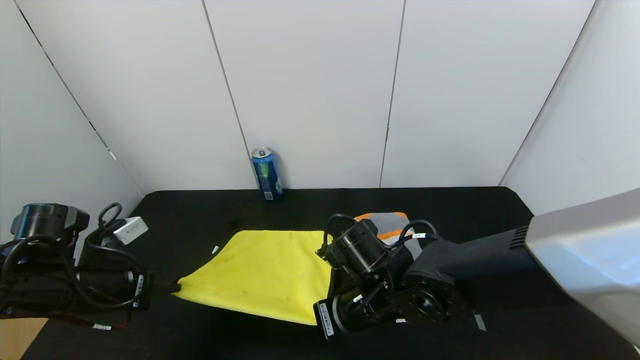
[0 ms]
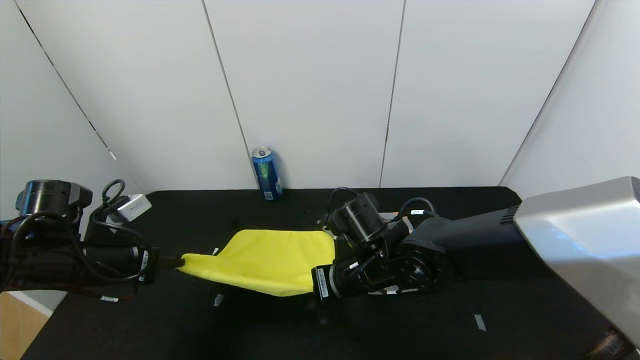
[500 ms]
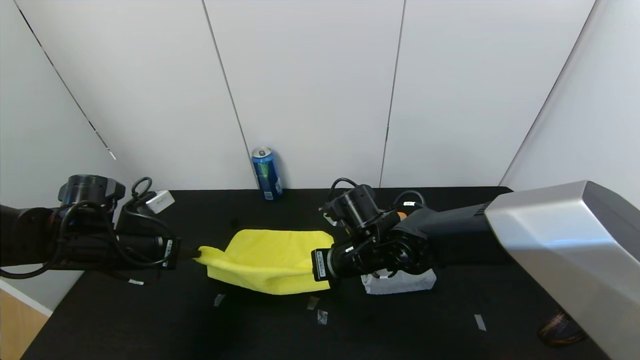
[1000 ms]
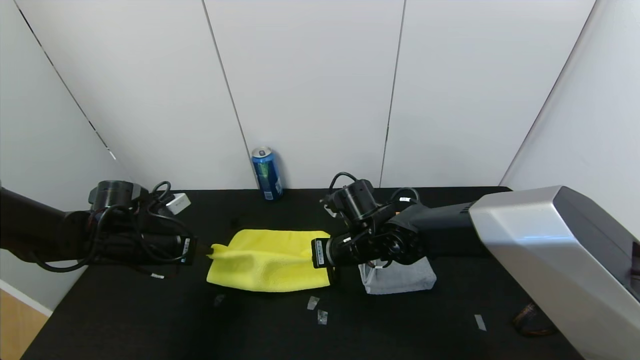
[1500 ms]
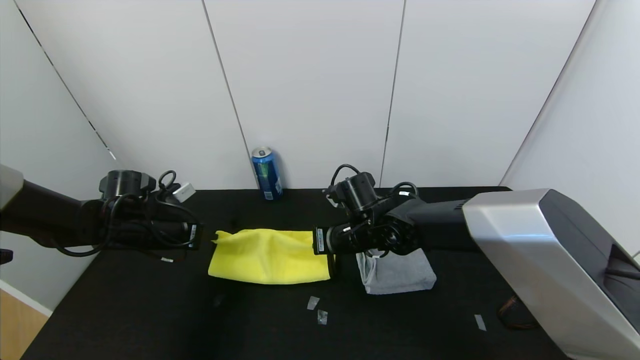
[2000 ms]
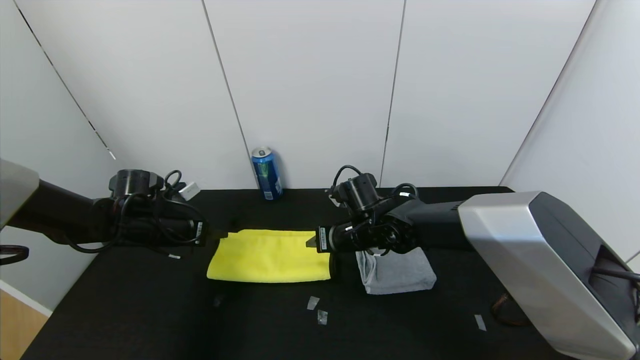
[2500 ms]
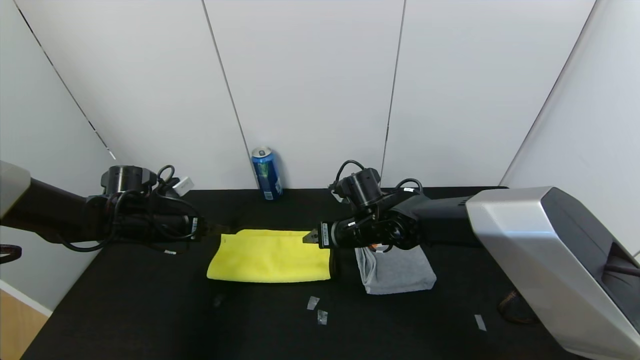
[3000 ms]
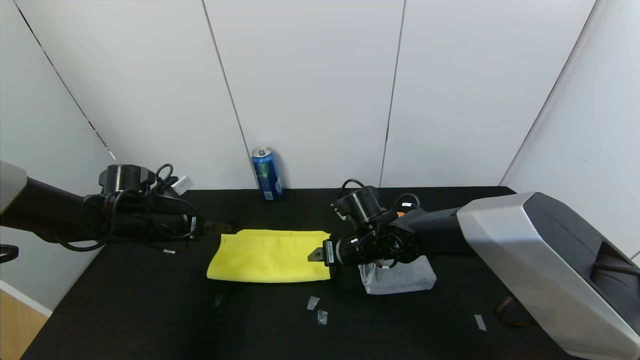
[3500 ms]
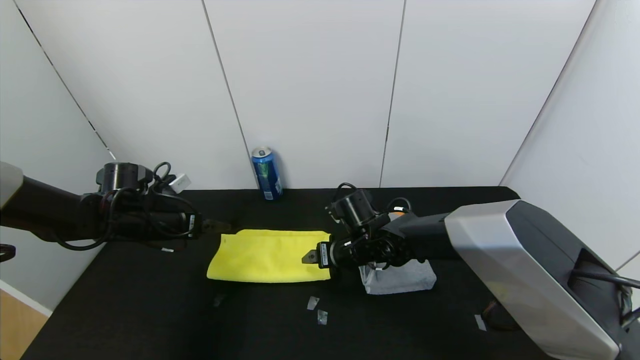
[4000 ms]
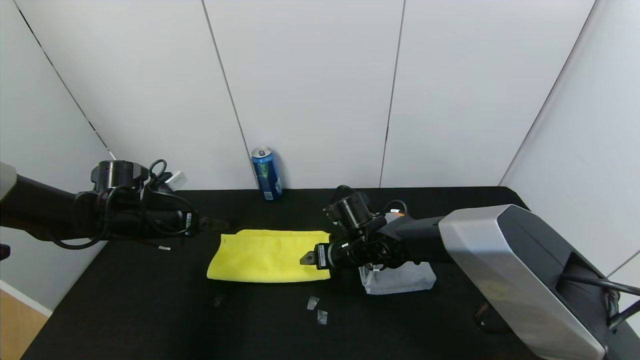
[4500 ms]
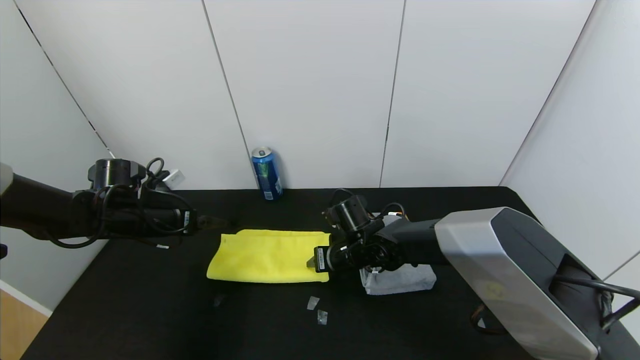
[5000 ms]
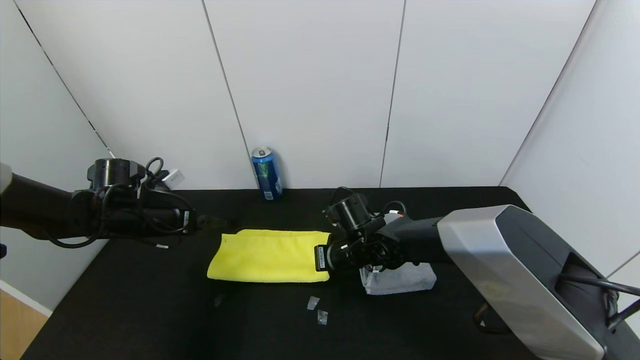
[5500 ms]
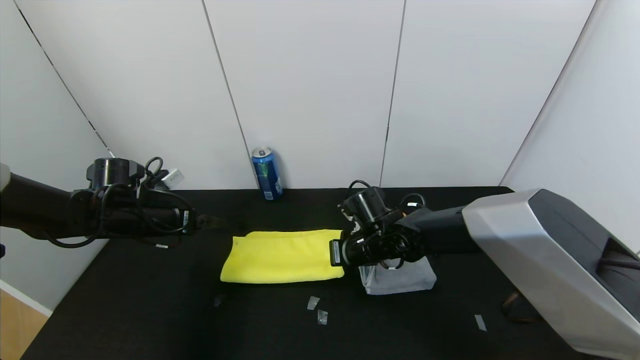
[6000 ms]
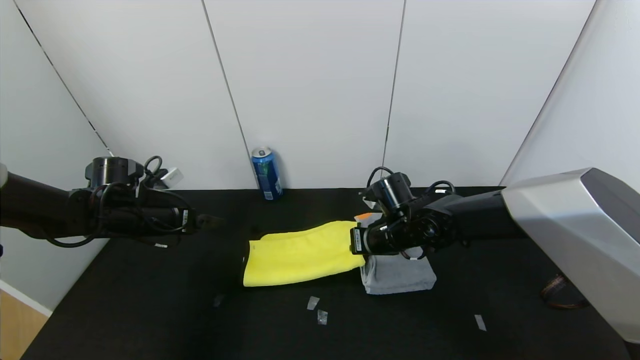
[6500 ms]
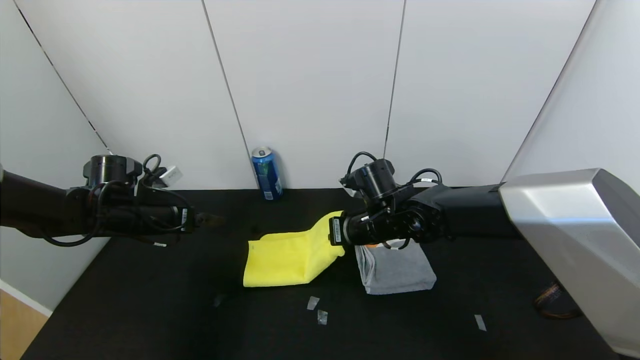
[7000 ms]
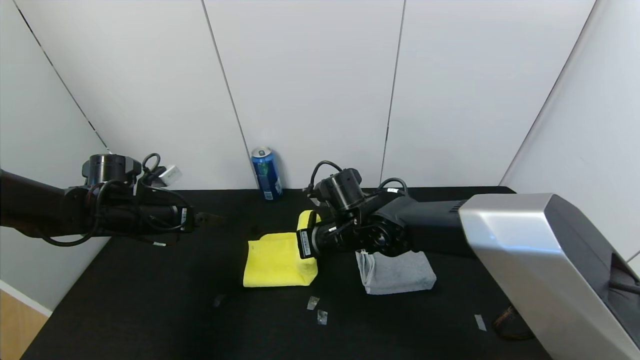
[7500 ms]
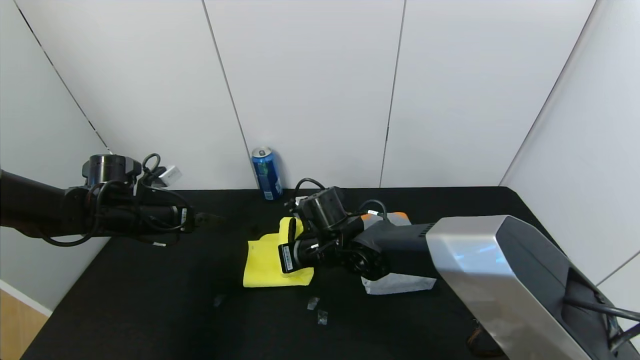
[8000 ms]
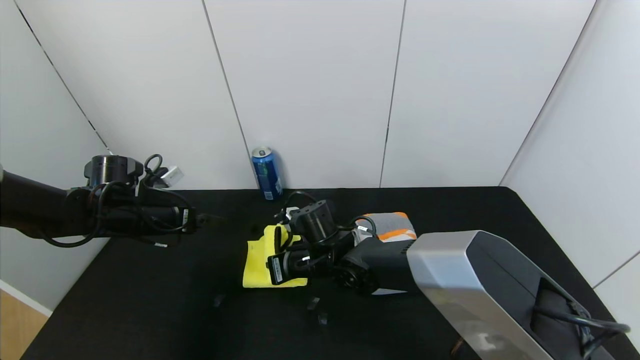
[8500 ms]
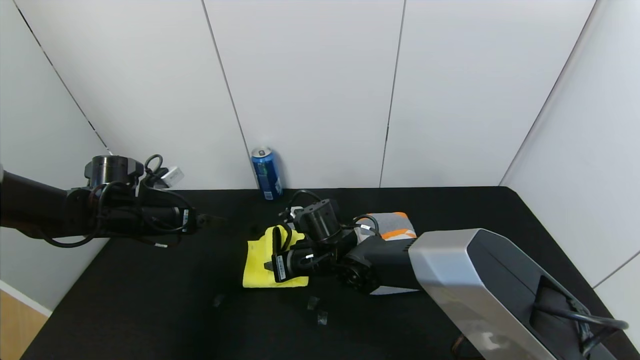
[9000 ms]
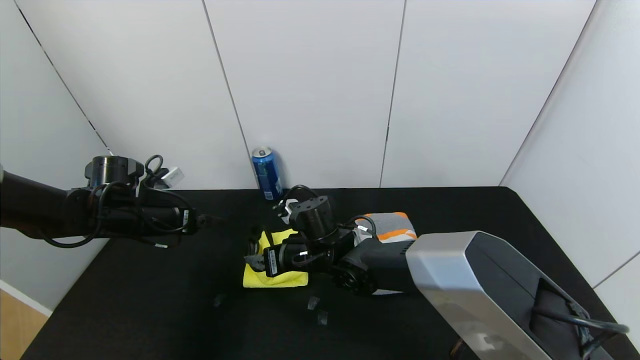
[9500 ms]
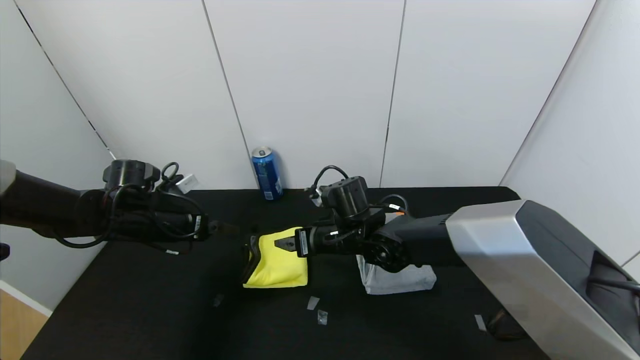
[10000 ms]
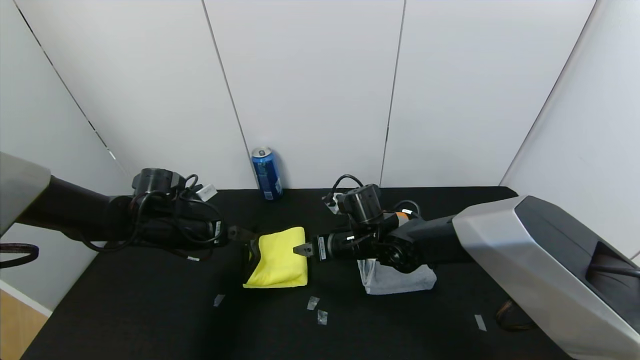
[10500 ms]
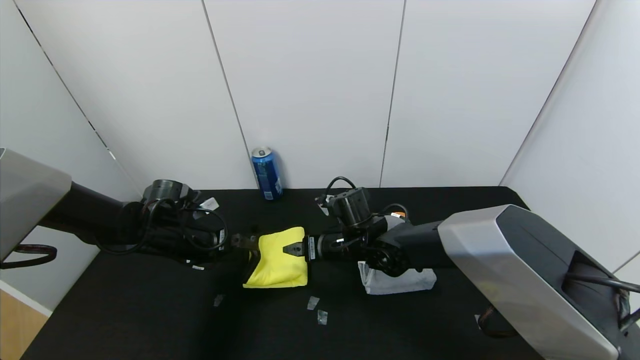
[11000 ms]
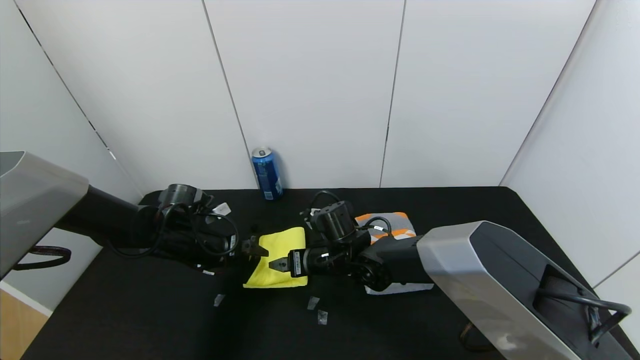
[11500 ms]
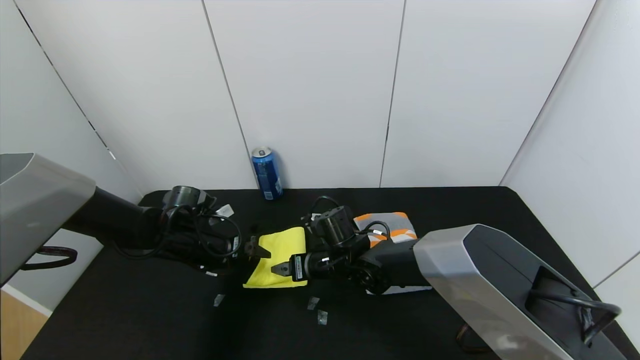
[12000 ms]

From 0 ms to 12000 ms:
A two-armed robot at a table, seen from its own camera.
Task of the whole recording: Use the gripper to fold the yellow towel and grey towel in half twice,then put the yellow towel on the grey towel.
Step, from 0 ms to 2500 ms: Fold the yellow towel upwards with the left gripper.
Step, from 0 ms to 2500 ms: Fold the yellow towel upwards with the right gripper.
Step, from 3000 ms to 9500 ms: Fold the yellow towel from right to left with right gripper.
From 0 ms to 2000 ms: Both grippers move forward, some 15 cm.
From 2000 ms to 4000 ms: The left gripper opens its fingers. The right gripper opens its fingers.
From 4000 ms to 6000 ms: The right gripper closes its fingers.
From 6000 ms to 8000 ms: The right gripper travels to the left by approximately 10 cm.
From 8000 ms to 10000 ms: The right gripper opens.
From 10000 ms to 12000 ms: The left gripper heads to the right and downward, covering about 10 cm, while the right gripper is displaced downward by some 5 cm.

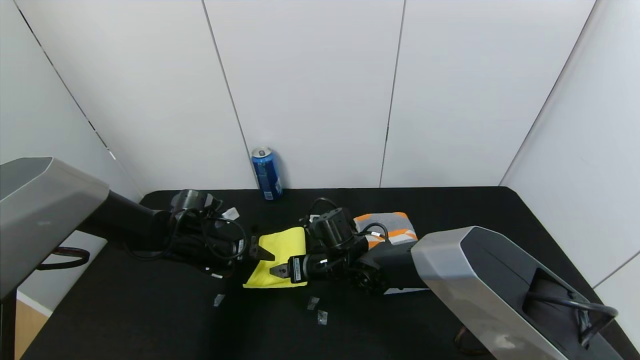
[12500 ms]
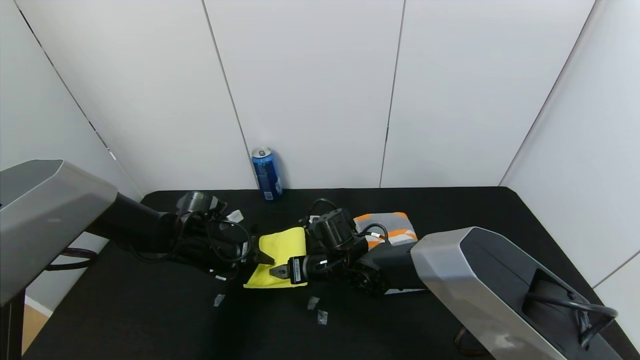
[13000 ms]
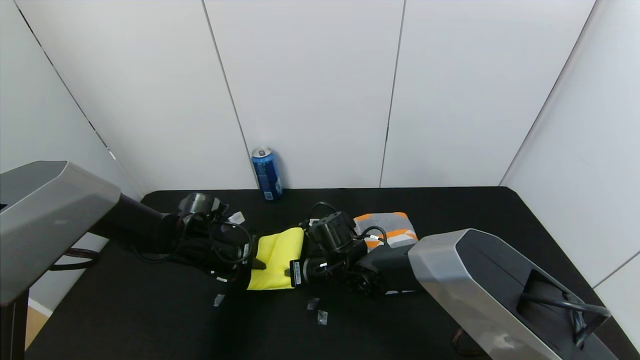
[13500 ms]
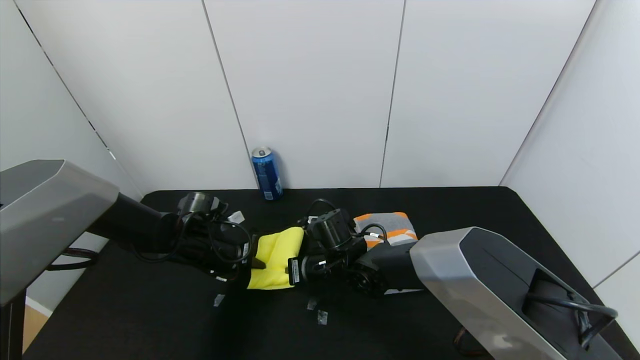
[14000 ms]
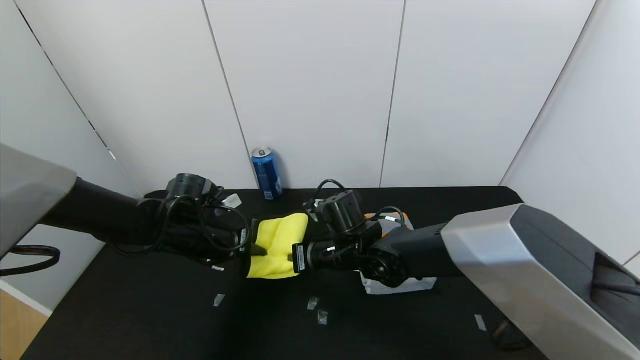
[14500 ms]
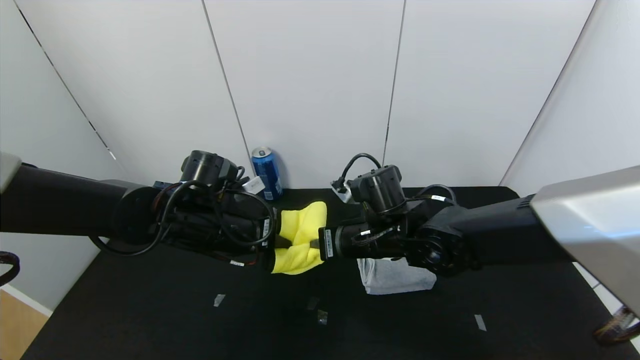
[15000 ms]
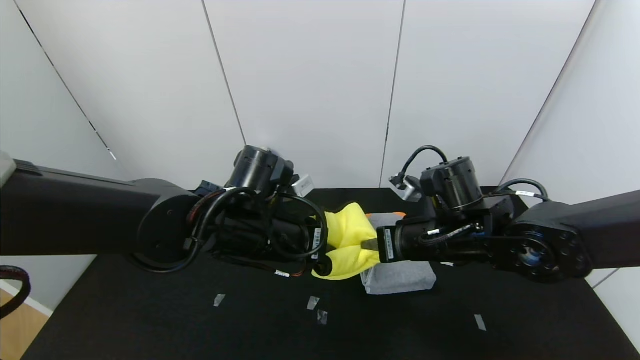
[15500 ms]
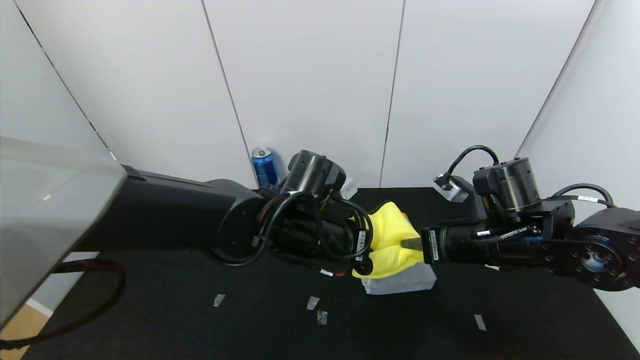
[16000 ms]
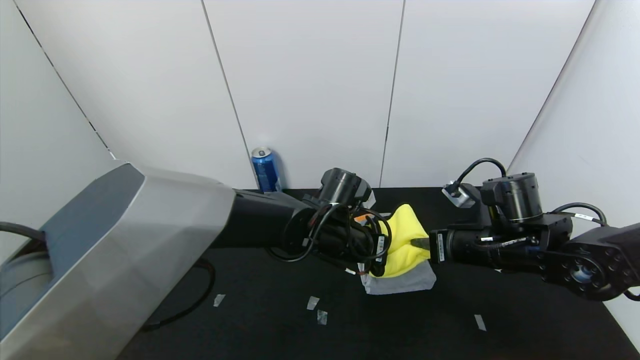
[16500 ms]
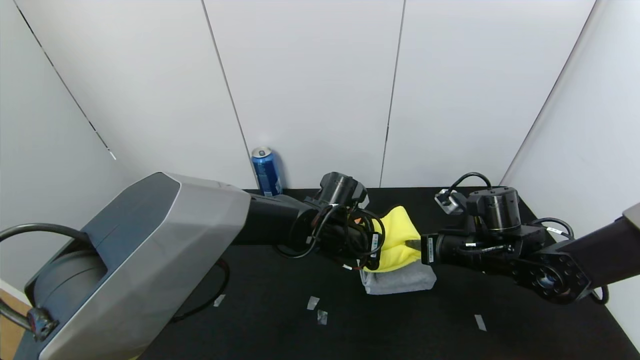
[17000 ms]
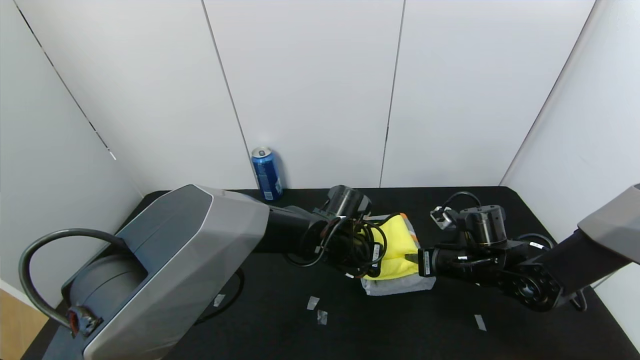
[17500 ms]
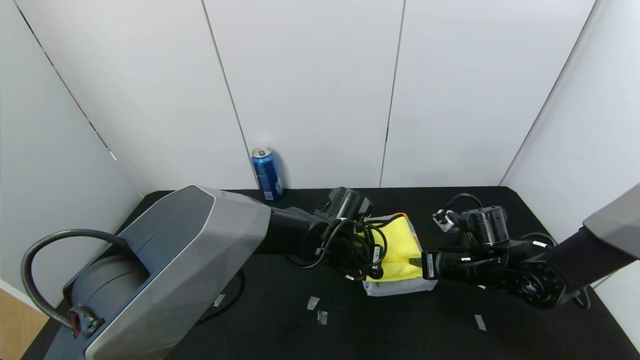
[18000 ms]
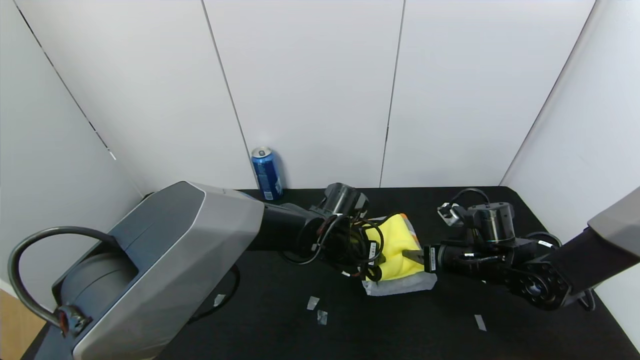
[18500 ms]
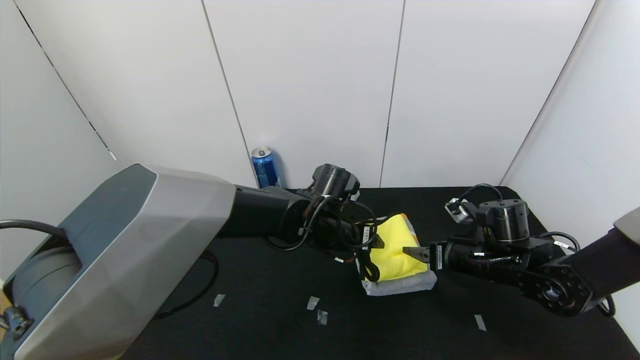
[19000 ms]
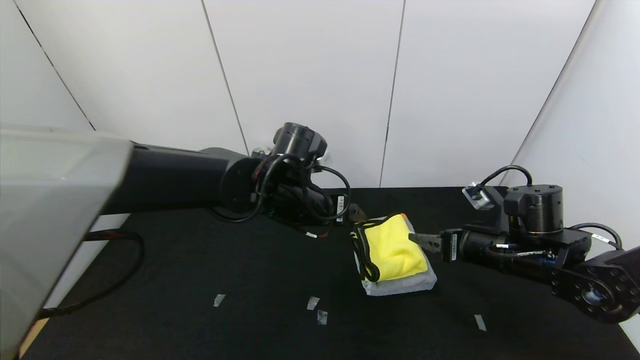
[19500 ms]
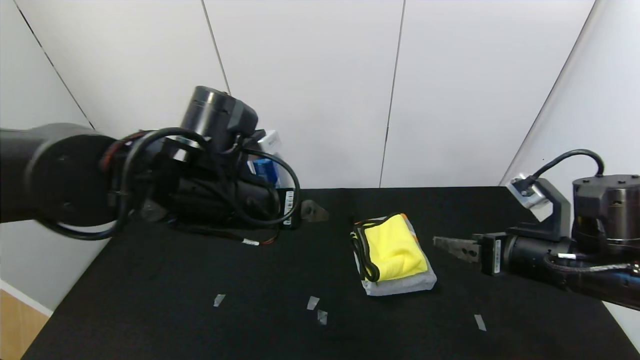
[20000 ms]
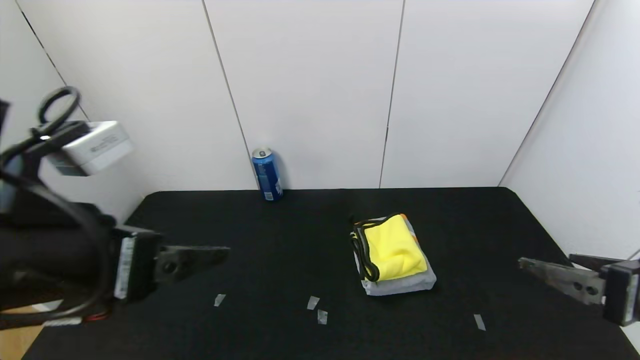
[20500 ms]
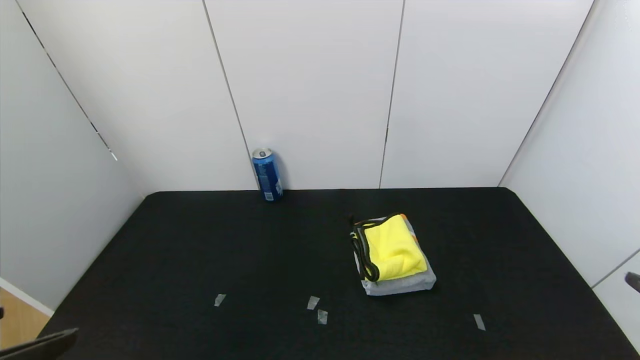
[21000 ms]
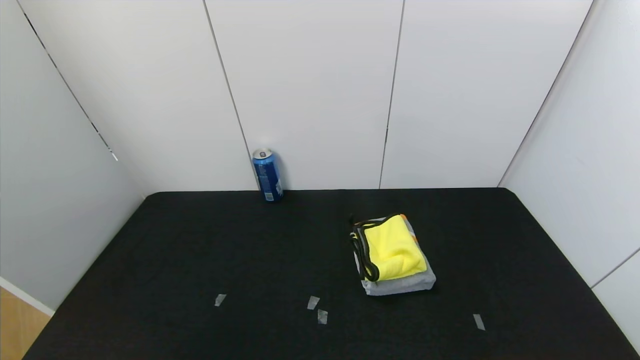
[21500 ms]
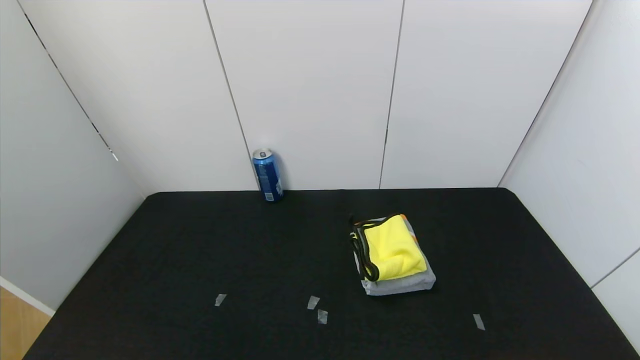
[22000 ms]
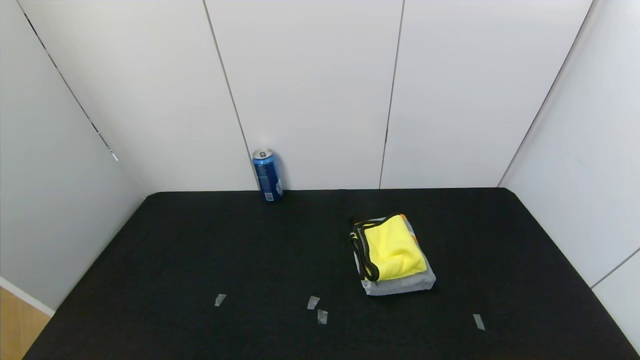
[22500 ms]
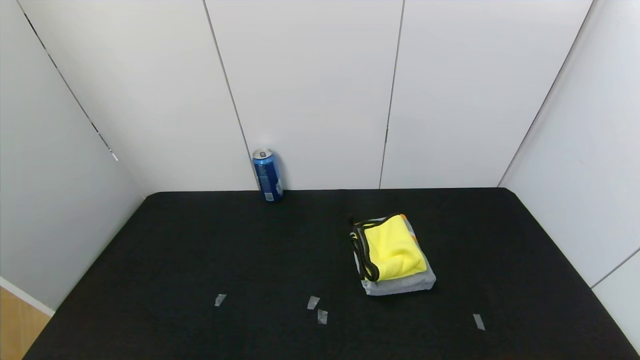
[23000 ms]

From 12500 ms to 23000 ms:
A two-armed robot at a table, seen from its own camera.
Task of the whole recording: Use the gripper to fold the yellow towel and grey towel in half twice,then put the yellow towel on the grey towel.
Step, from 12500 ms to 19000 ms: Place the yellow towel on the gray towel with the left gripper.
Step, from 12500 ms to 19000 ms: Place the yellow towel on the gray towel with the right gripper.
From 12500 ms to 14500 ms: The right gripper ends up approximately 5 cm from where it was, and closes. The left gripper moves about 5 cm, and closes.
From 14500 ms to 16500 ms: The two grippers go roughly 25 cm to the right.
From 16500 ms to 19000 ms: The left gripper opens, while the right gripper moves downward, about 5 cm, and opens up.
From 19000 ms to 21000 ms: The left gripper is displaced backward, to the left and upward by about 40 cm, while the right gripper goes roughly 30 cm backward, upward and to the right.
